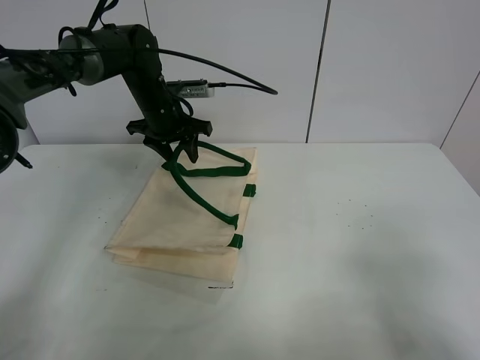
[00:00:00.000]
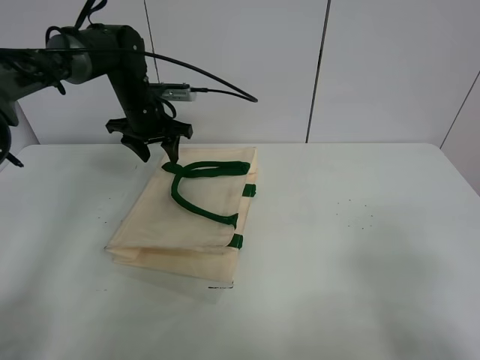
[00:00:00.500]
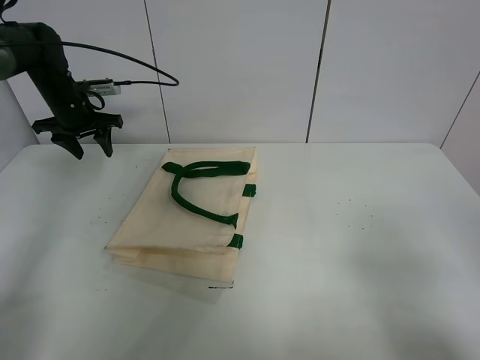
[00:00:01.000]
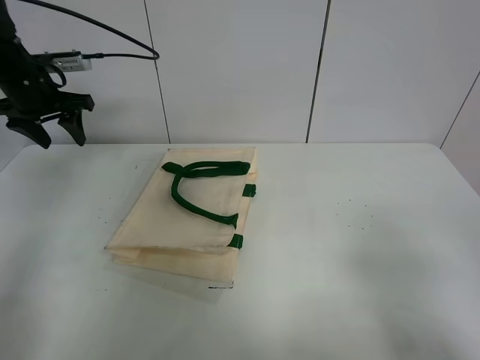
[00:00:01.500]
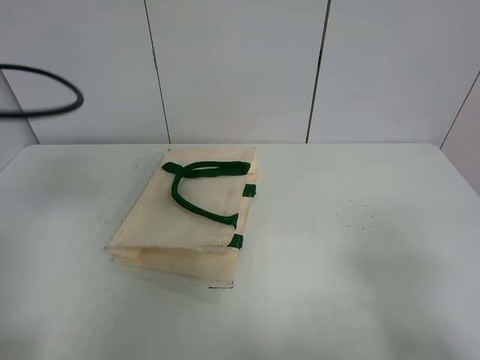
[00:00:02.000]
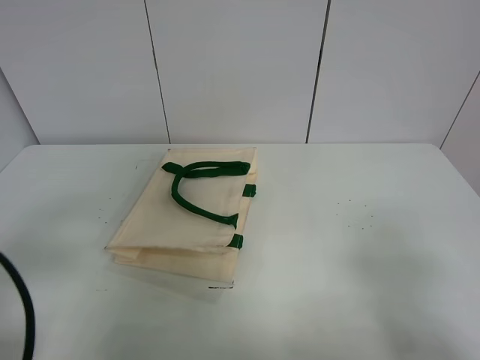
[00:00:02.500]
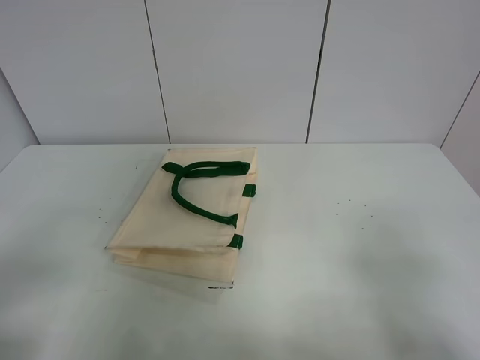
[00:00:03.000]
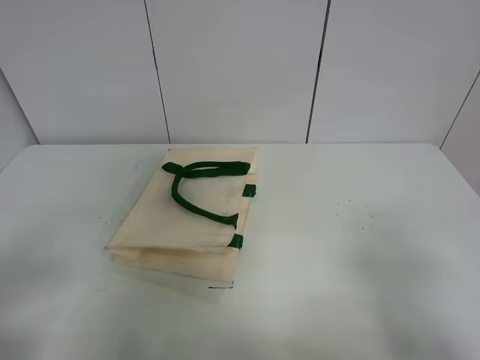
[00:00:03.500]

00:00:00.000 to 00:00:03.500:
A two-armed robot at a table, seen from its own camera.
Task of the whole recording: open the white linen bag and put the peach in the bag.
00:00:00.000 to 00:00:02.000: The left gripper heads backward and to the left, covering about 35 cm.
00:00:02.000 to 00:00:03.500: The left gripper goes roughly 20 cm backward and downward.
